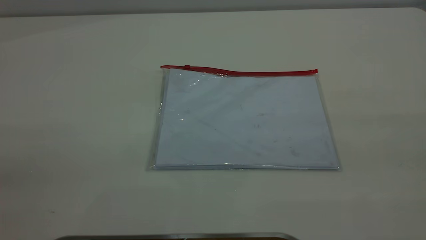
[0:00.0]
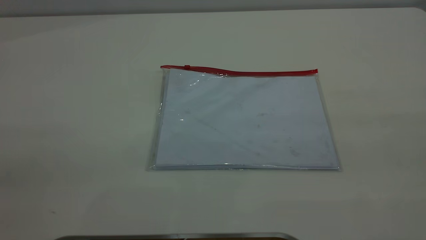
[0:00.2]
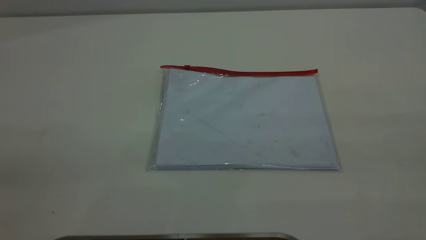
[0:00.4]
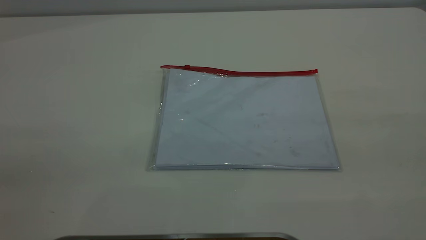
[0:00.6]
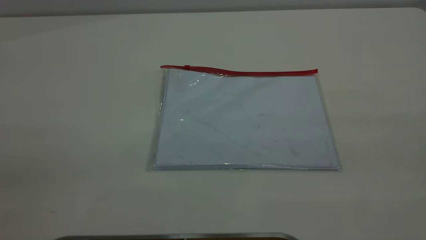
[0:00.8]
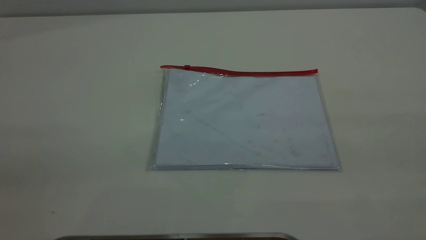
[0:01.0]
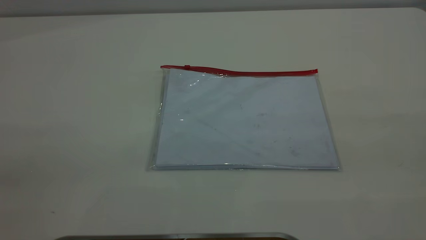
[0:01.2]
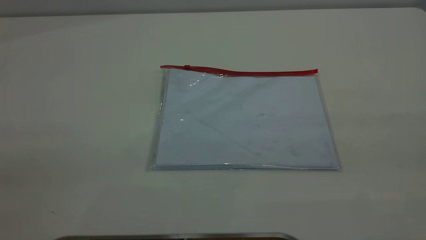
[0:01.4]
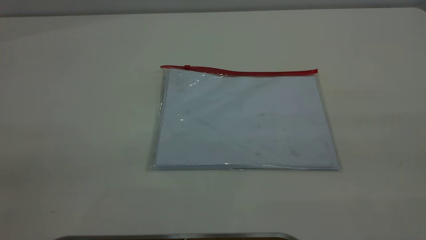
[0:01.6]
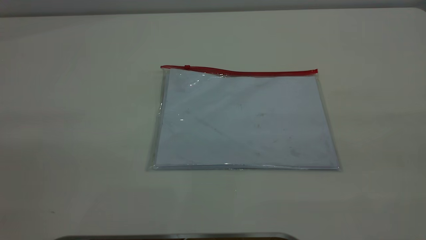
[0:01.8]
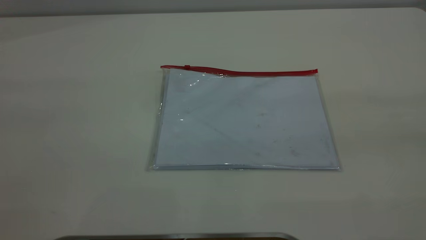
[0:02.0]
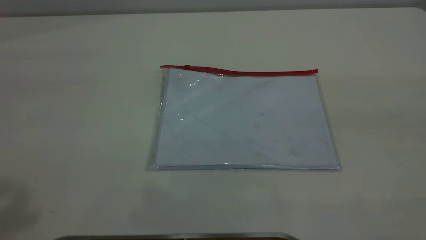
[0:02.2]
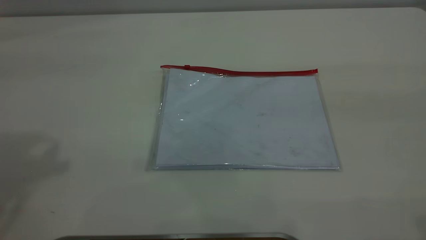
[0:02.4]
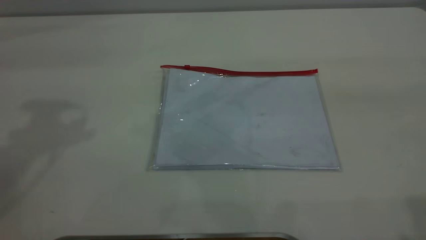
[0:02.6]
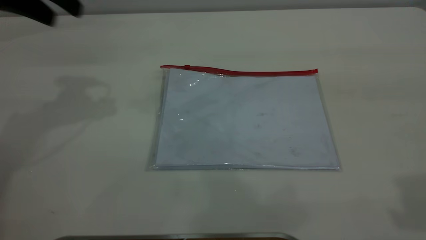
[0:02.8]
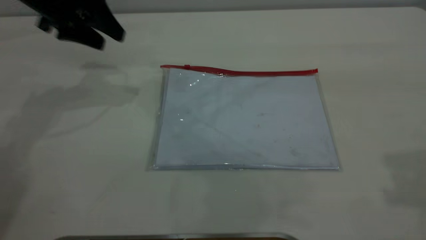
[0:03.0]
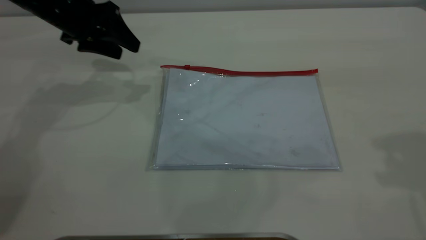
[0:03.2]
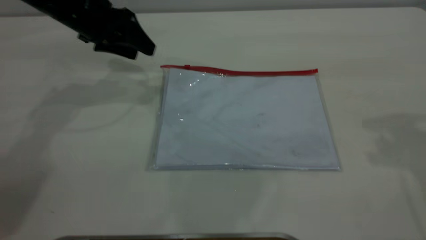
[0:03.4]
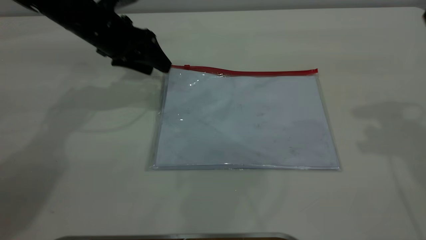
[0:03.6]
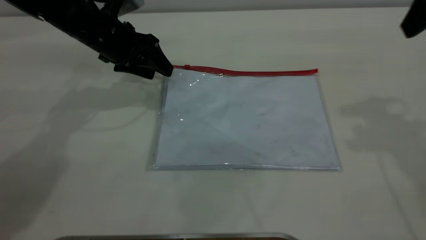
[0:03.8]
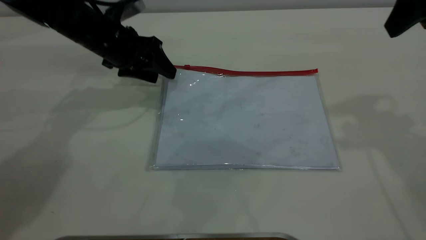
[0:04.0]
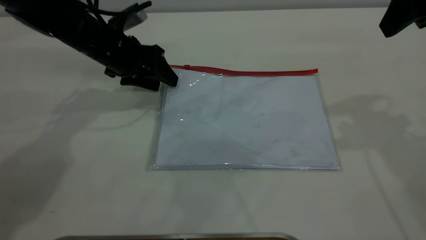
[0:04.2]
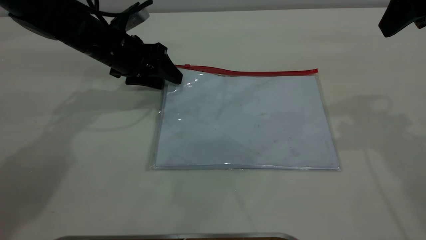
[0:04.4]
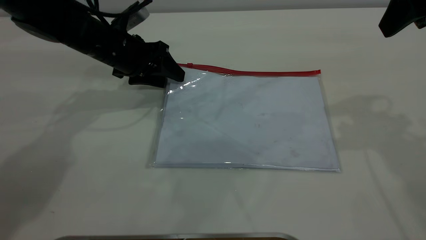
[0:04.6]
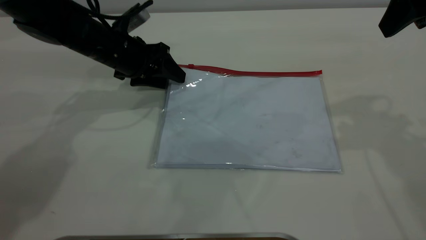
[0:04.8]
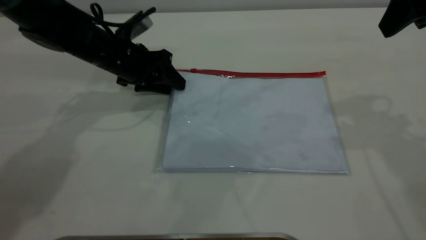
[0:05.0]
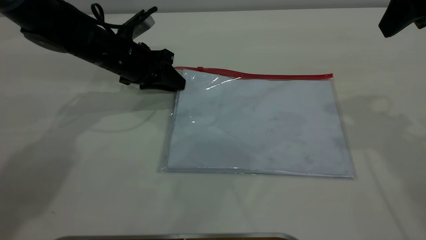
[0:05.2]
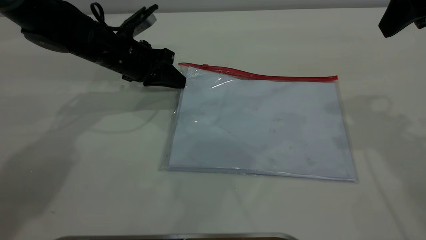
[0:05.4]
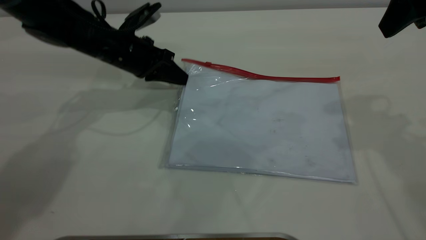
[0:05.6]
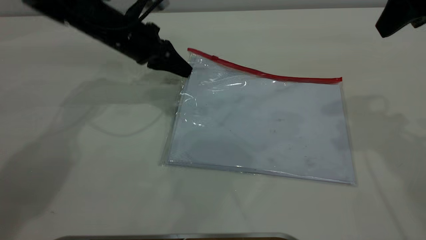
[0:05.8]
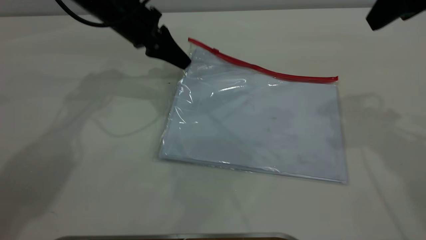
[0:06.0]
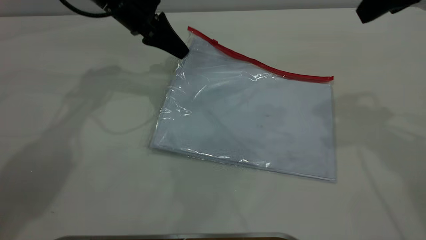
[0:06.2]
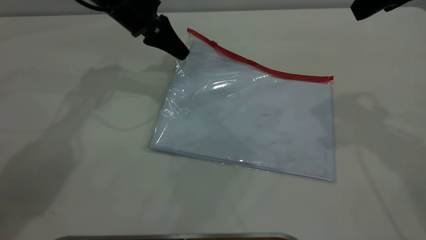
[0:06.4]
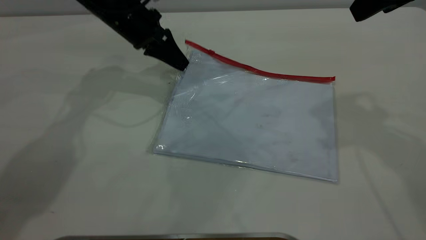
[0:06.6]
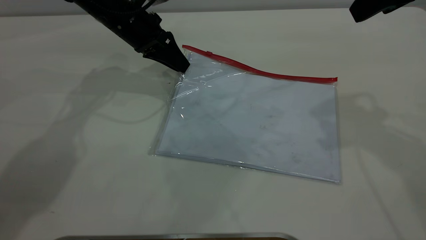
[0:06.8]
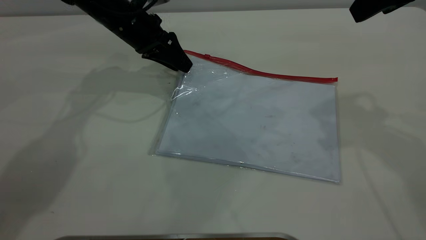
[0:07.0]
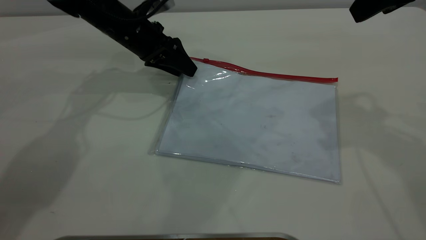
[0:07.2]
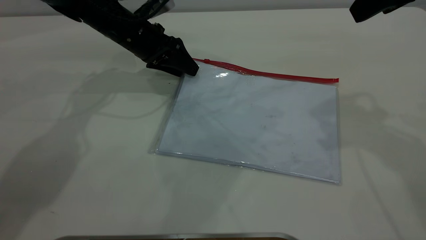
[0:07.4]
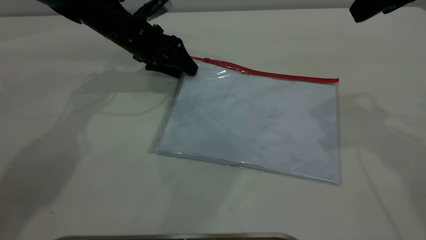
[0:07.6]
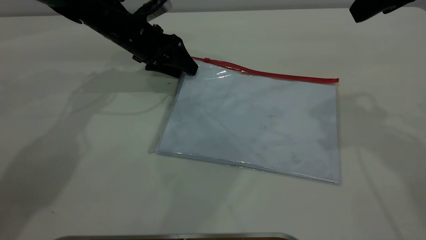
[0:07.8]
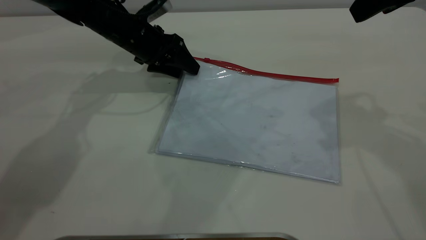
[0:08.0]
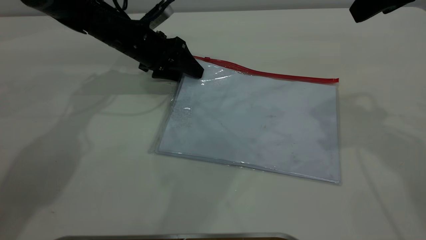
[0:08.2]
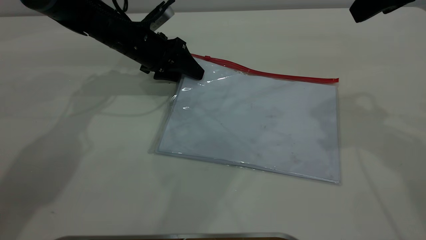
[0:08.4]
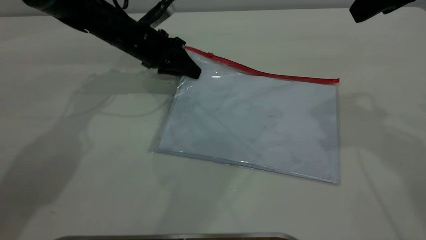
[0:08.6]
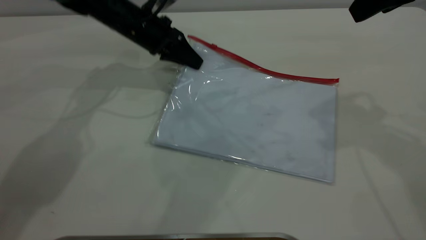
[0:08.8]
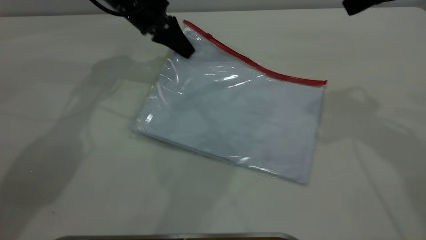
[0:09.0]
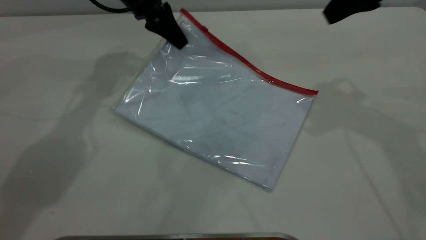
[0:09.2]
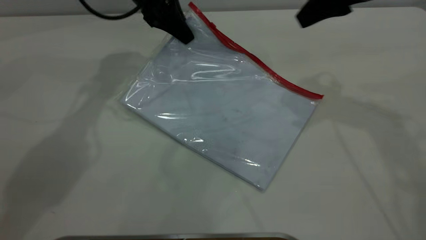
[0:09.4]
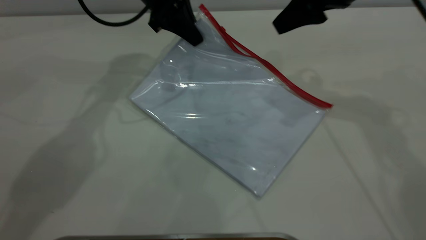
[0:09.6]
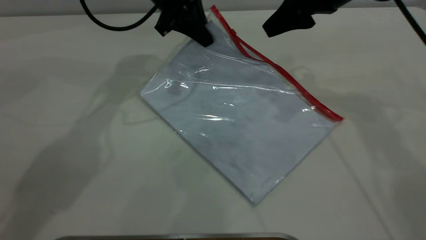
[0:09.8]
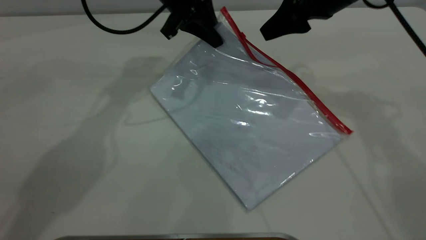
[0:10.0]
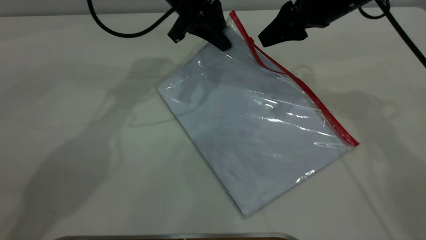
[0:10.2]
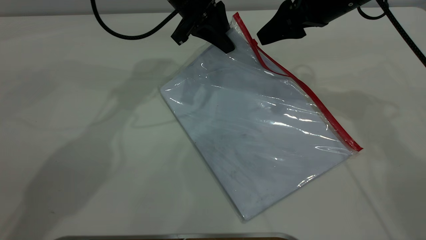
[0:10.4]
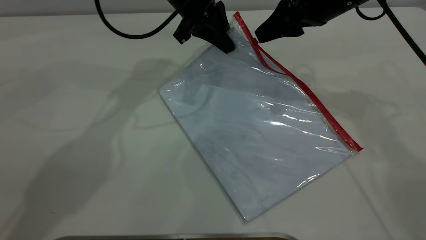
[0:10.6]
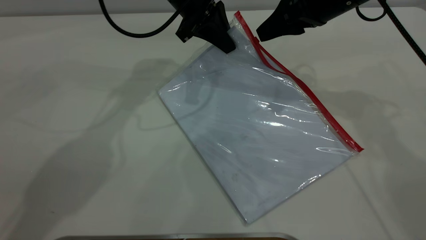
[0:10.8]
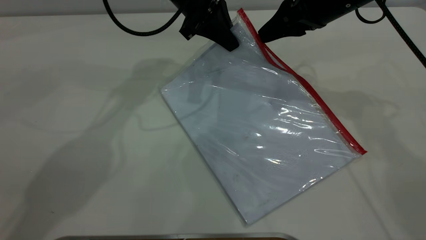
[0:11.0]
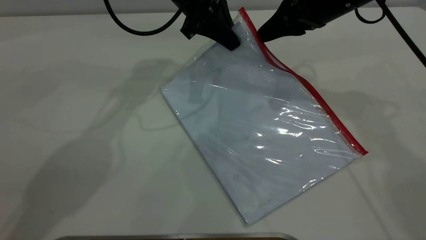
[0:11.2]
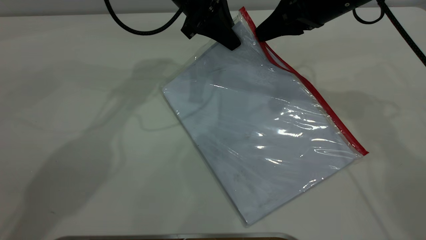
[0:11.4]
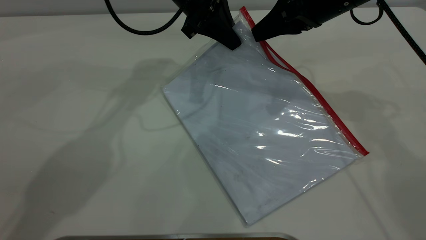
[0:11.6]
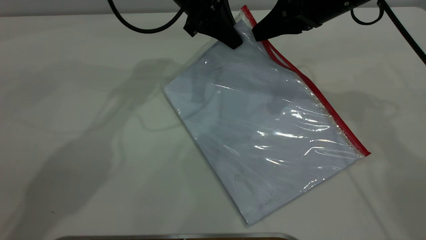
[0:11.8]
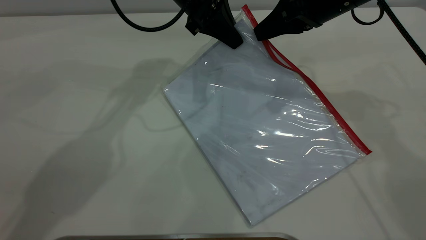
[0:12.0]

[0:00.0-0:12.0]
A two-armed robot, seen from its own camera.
Step, 0:00.0 to 0:09.0: Pick up the transparent plastic bag with the left gripper.
0:00.0 to 0:01.6: Both grippers stay put.
0:01.6 to 0:03.0: The left gripper shifts roughly 50 cm forward and downward.
0:03.0 to 0:04.4: The left gripper moves downward and to the right, about 10 cm, while the right gripper heads forward and downward, covering roughly 15 cm.
0:04.4 to 0:06.0: The left gripper changes place by some 5 cm, and closes its fingers.
0:06.0 to 0:07.6: The left gripper travels downward by approximately 5 cm, and opens.
0:07.6 to 0:09.0: The left gripper shifts approximately 5 cm upward, and closes its fingers.
0:09.0 to 0:10.4: The left gripper goes about 10 cm to the right, while the right gripper goes some 15 cm downward, forward and to the left.
0:10.4 to 0:12.0: The right gripper closes up.

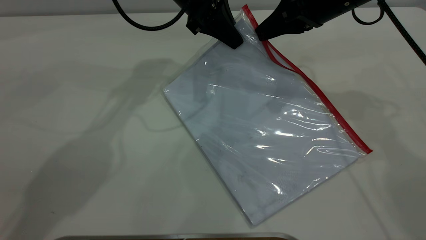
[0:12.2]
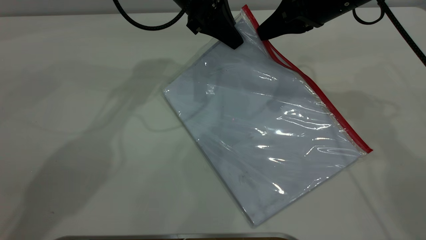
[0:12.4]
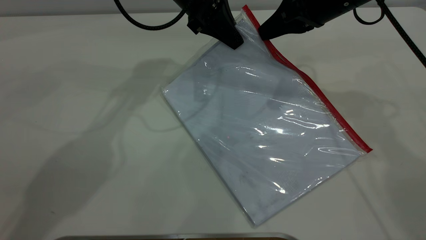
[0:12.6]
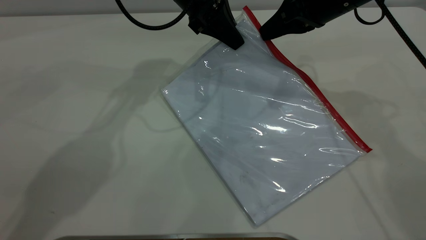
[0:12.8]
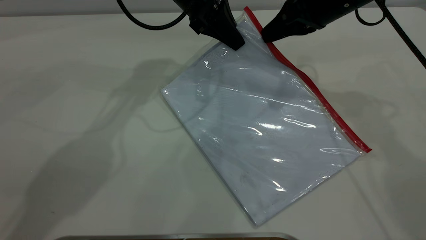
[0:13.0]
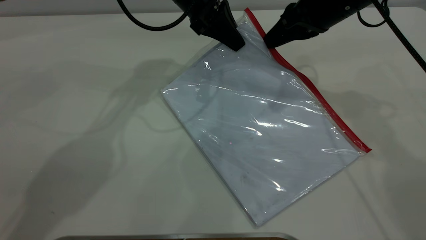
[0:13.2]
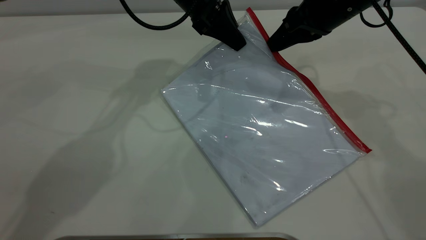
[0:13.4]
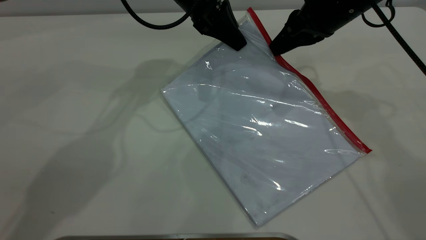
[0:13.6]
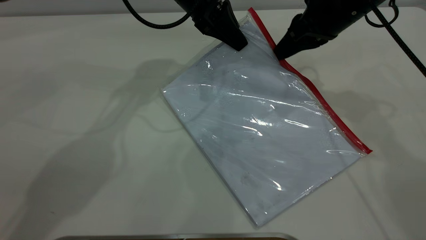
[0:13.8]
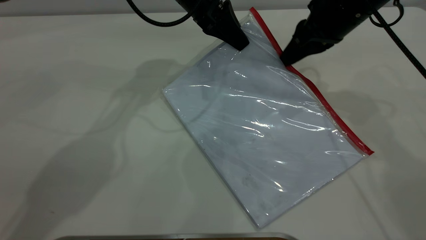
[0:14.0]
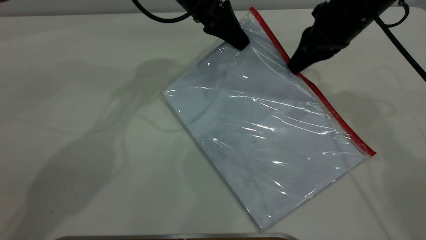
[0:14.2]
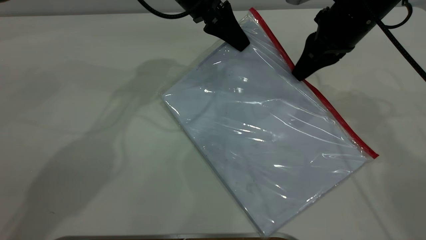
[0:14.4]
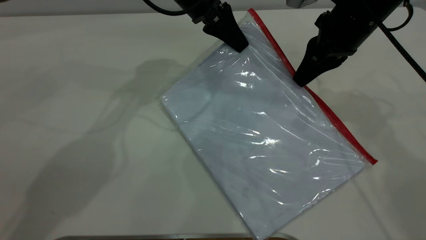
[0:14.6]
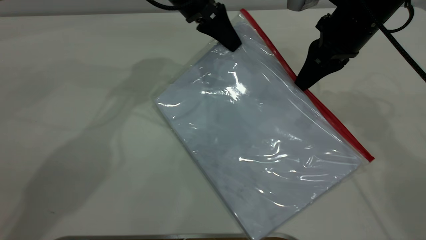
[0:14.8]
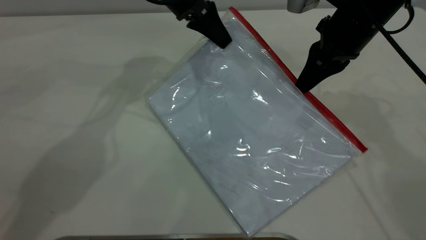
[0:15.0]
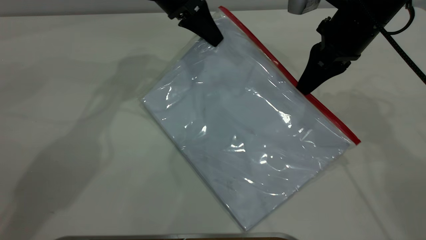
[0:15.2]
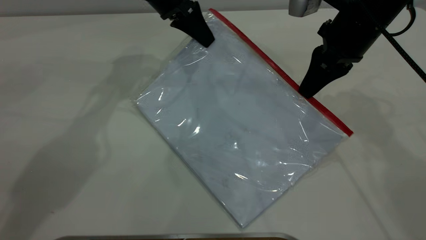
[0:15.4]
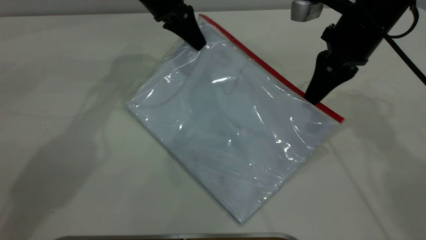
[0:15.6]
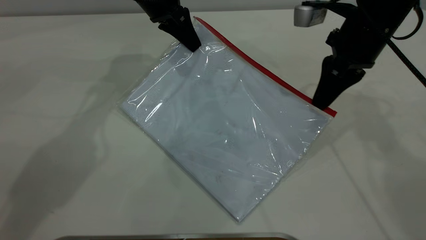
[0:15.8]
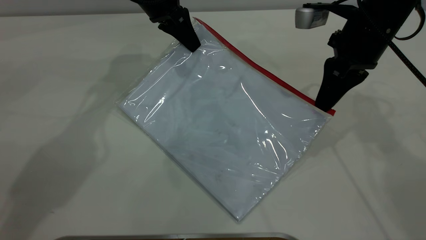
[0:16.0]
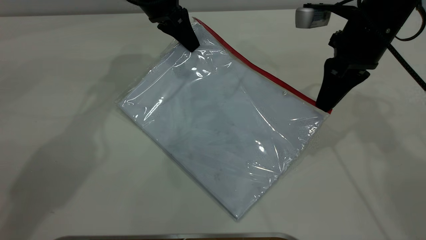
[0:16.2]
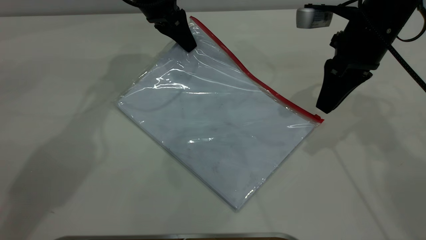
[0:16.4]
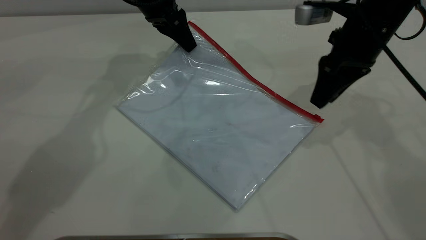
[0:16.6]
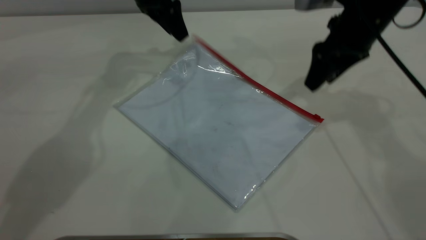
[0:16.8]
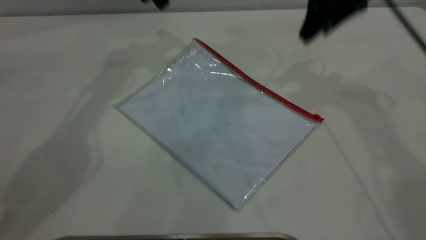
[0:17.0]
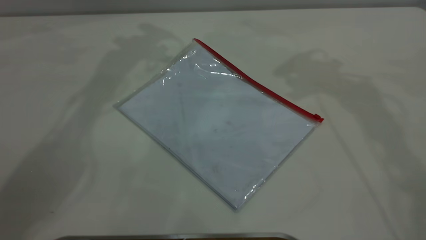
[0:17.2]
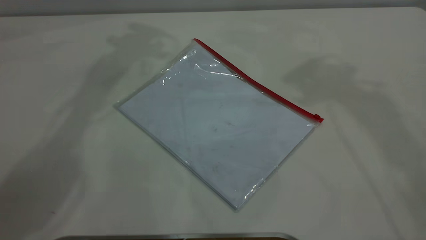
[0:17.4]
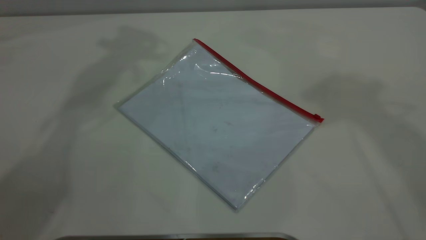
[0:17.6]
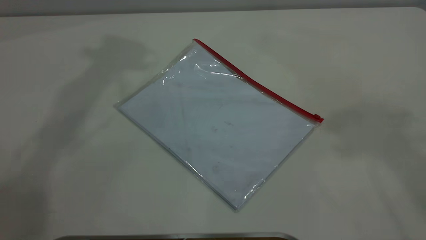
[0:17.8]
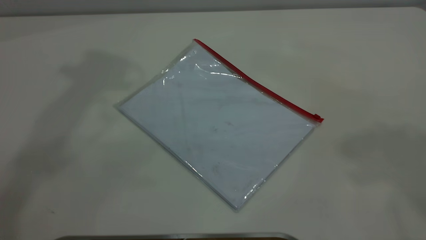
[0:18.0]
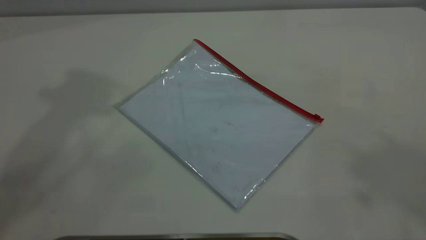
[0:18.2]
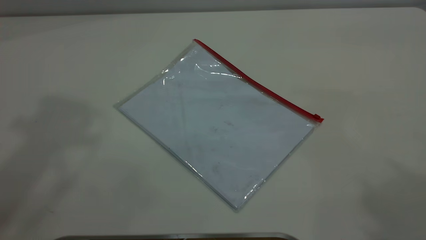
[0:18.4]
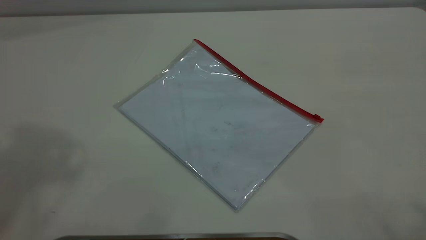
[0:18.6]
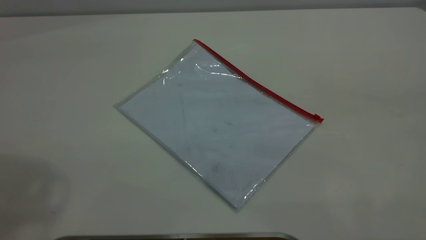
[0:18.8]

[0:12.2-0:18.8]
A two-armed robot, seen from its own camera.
Step, 0:12.2 to 0:16.6: Pulling up the zipper on the transparent plastic bag with the right gripper to close it.
0:12.2 to 0:13.8: The grippers stay close to where they were, moving slightly.
0:13.8 to 0:15.4: The left gripper shifts approximately 5 cm to the left.
0:15.4 to 0:17.2: The grippers both shift upward by some 20 cm. The right gripper opens up, while the left gripper opens up.
